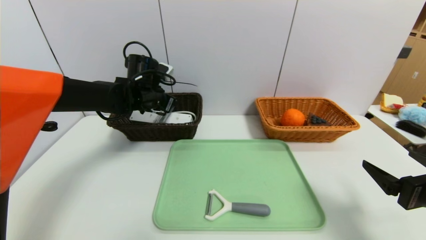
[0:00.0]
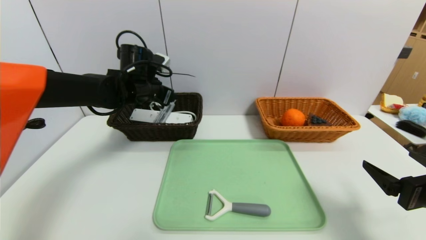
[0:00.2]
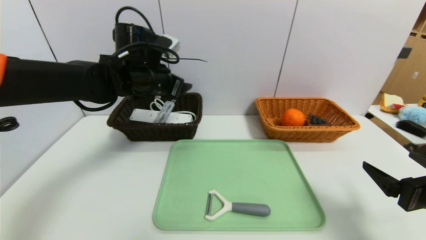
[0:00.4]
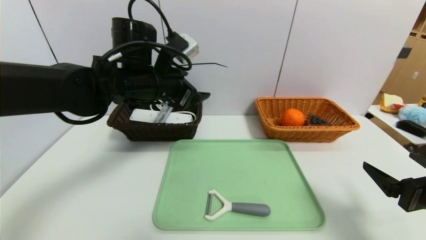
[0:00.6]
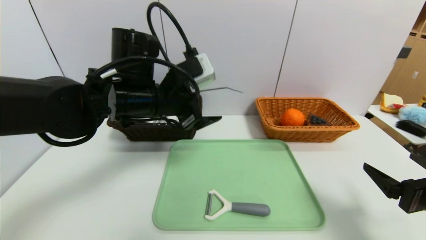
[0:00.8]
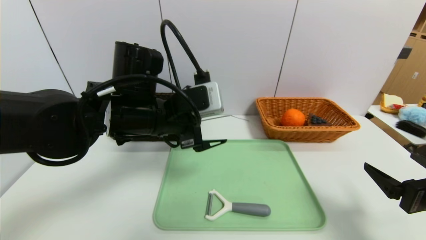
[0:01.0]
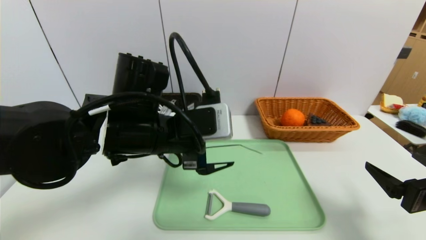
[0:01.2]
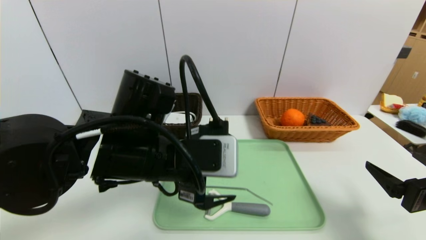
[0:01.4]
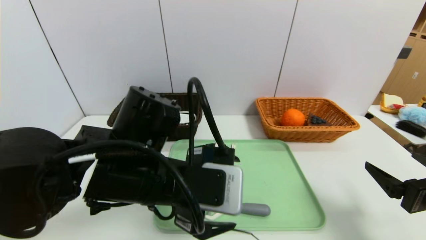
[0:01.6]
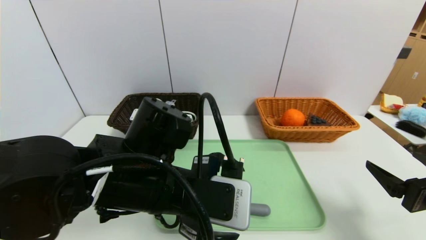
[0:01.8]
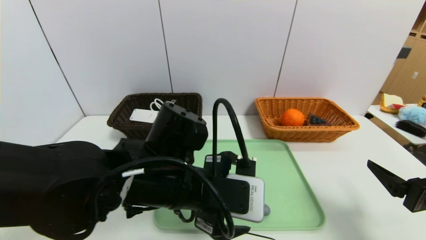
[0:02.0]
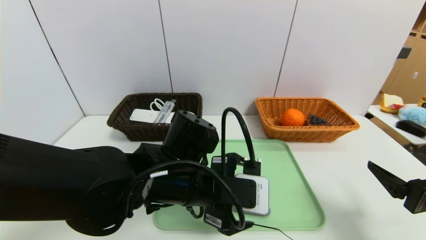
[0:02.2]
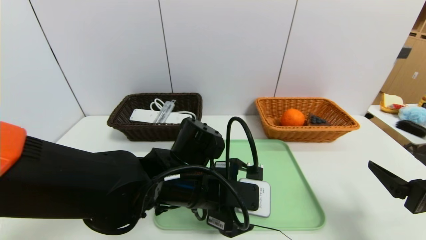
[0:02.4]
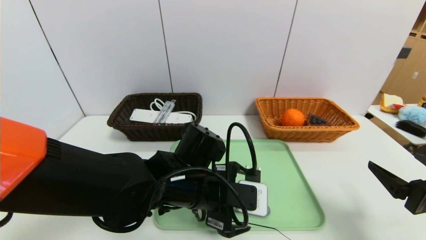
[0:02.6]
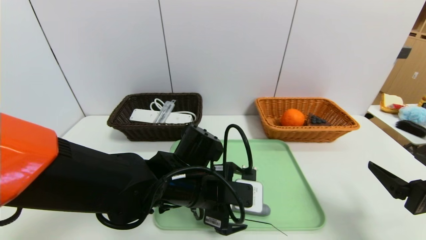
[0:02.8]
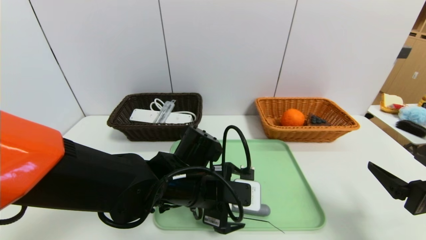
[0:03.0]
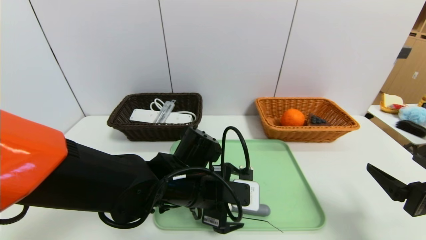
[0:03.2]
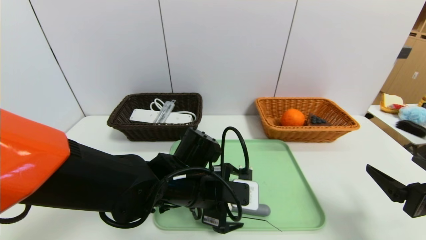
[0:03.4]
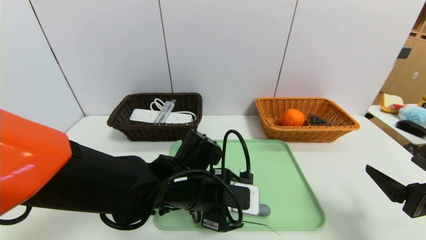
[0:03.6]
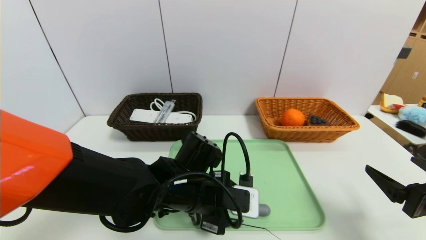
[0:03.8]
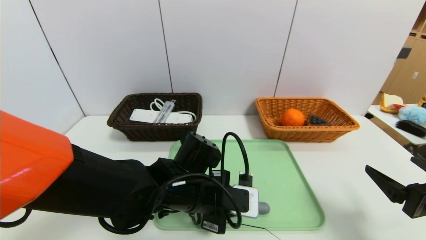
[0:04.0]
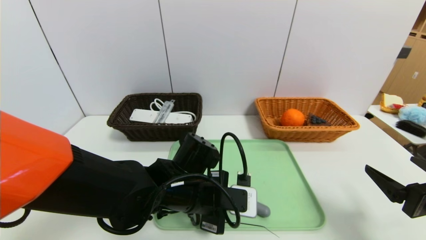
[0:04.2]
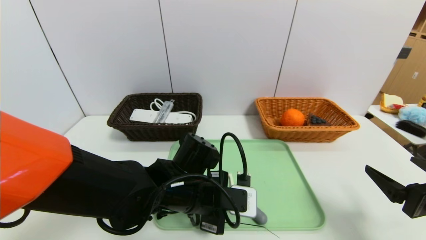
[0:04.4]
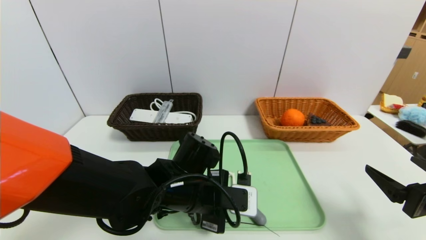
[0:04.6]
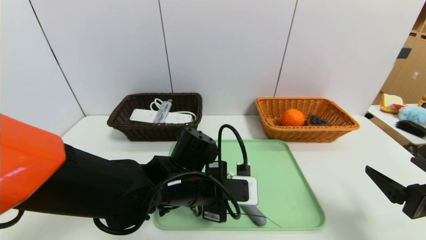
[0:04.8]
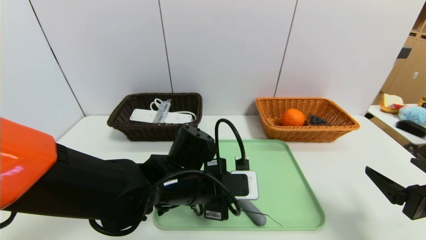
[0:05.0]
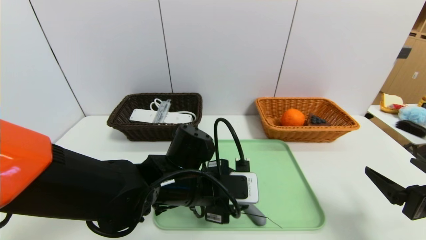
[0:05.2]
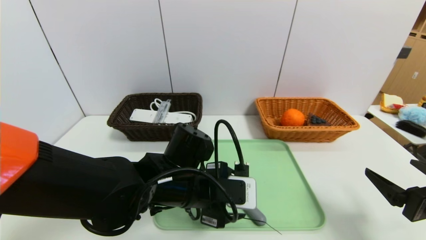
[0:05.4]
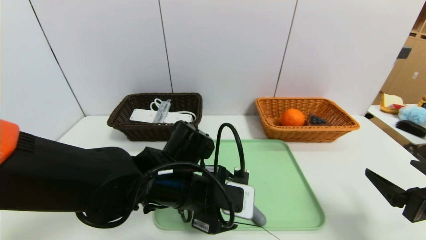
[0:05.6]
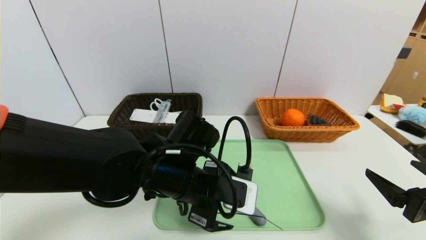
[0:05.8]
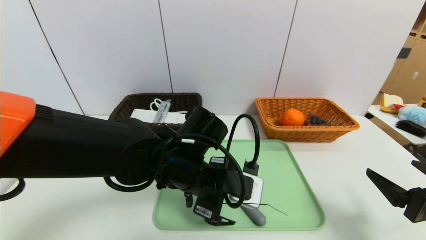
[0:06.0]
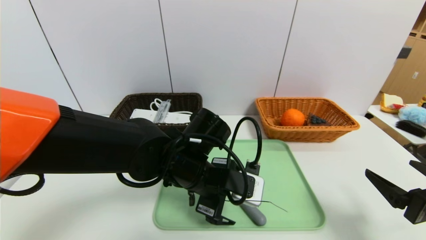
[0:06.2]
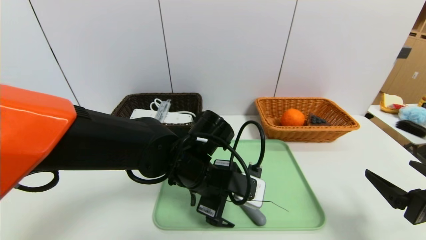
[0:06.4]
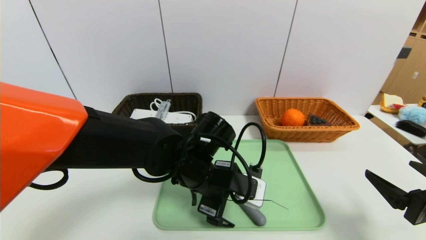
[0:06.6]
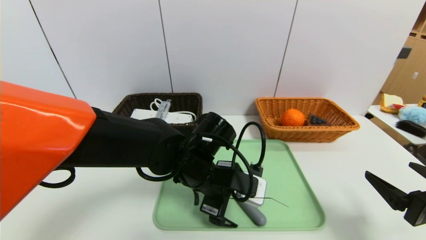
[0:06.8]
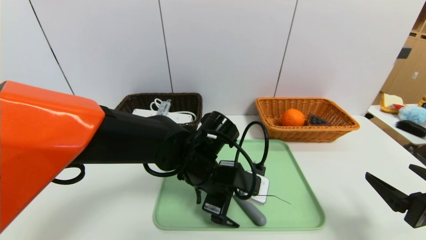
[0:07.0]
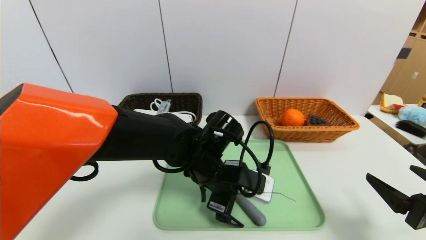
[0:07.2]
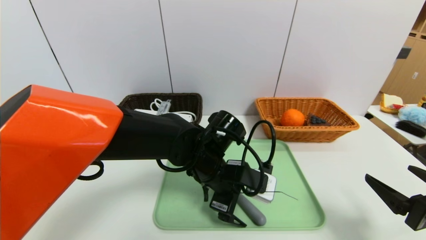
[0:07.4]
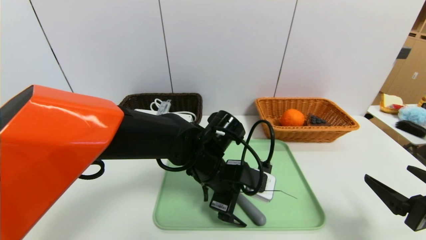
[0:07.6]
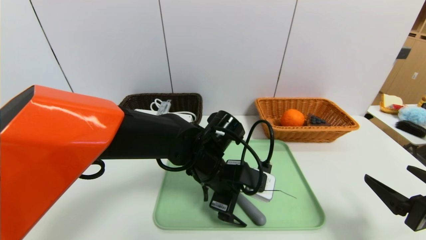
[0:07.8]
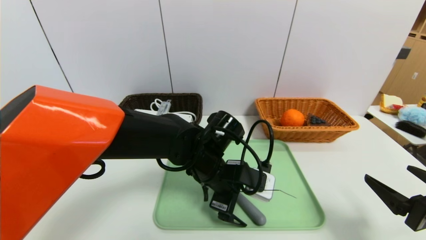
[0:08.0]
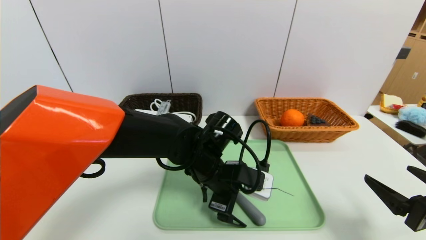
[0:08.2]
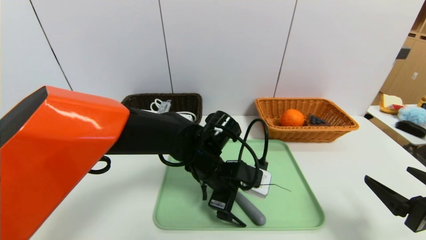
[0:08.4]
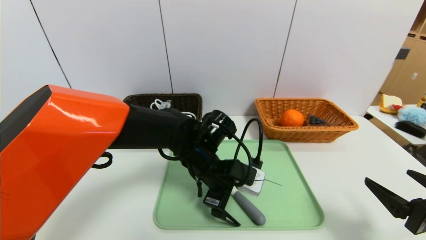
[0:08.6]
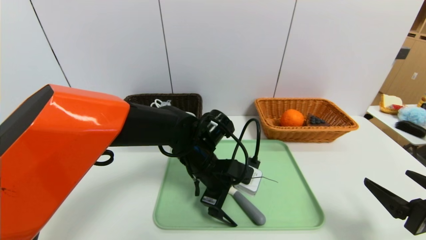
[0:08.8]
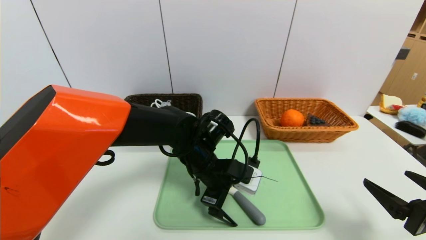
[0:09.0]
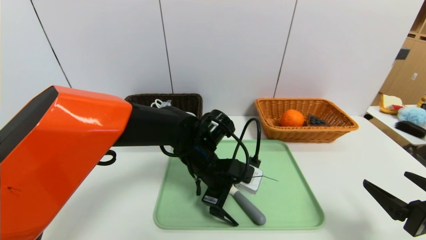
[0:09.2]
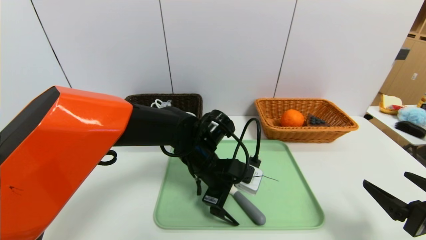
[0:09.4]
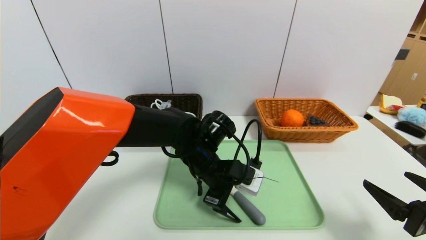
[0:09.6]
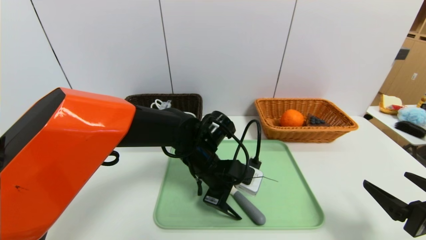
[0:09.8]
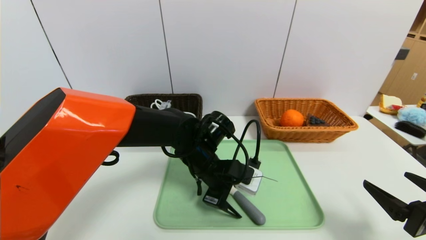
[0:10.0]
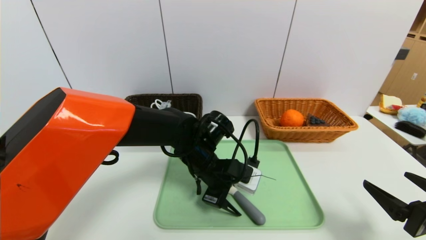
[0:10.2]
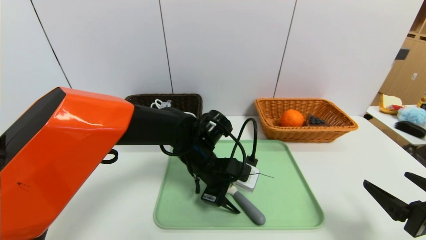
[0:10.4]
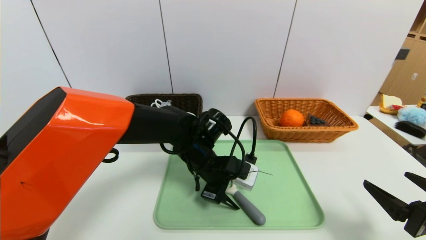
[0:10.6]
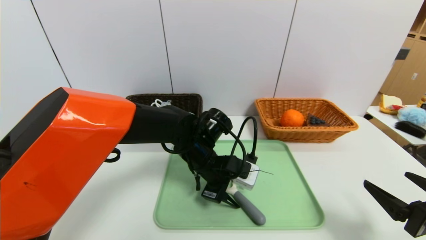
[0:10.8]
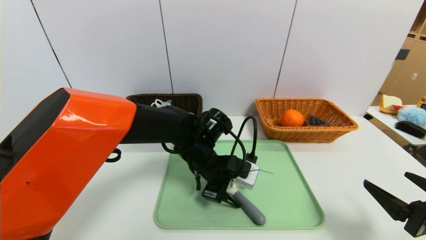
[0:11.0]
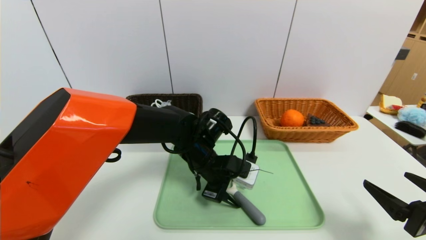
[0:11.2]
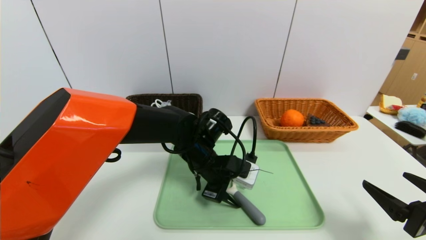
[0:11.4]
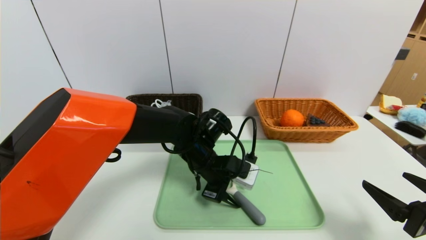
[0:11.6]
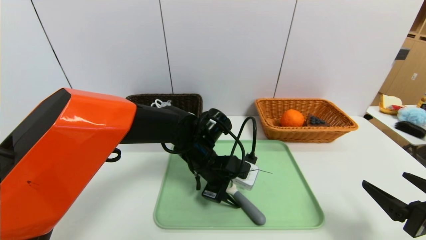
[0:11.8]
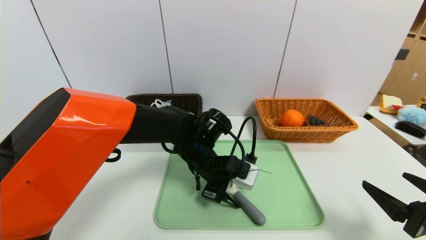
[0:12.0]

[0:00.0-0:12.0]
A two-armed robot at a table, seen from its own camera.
Task of the whole recording: place the food in the right basket with the right gripper, and place the non food items in the left basket with the left gripper.
0:00.0 to 0:01.6: The left gripper goes approximately 25 cm backward.
0:01.6 to 0:03.0: The left gripper heads downward, covering about 10 cm.
0:03.0 to 0:04.4: The left gripper closes up.
0:04.4 to 0:06.0: The left gripper opens.
0:06.0 to 0:07.6: The left gripper ends up some 5 cm from where it was.
0:07.6 to 0:09.0: The grippers move only a little.
0:09.0 to 0:10.4: The left gripper closes.
0:10.4 to 0:12.0: Neither gripper changes place.

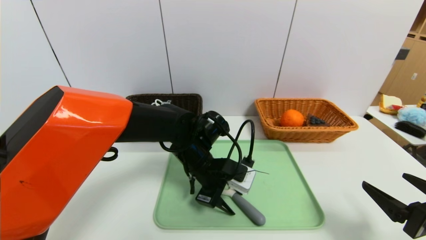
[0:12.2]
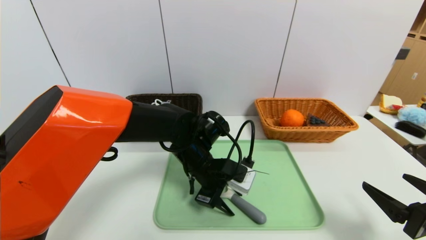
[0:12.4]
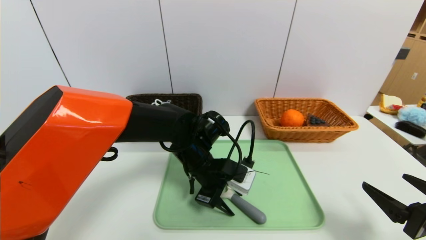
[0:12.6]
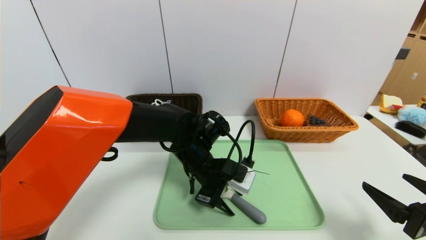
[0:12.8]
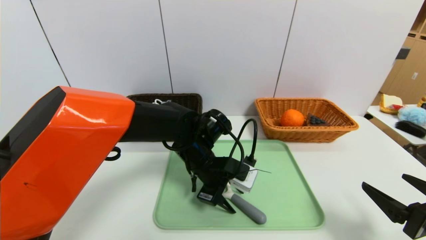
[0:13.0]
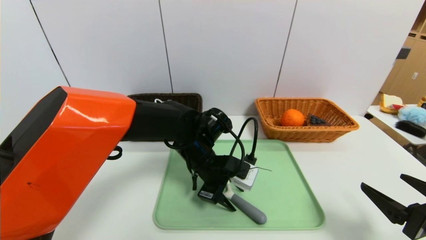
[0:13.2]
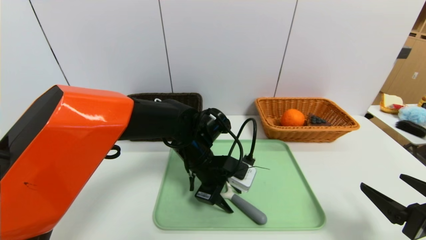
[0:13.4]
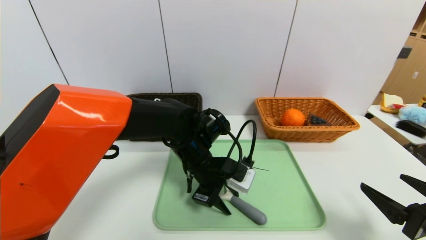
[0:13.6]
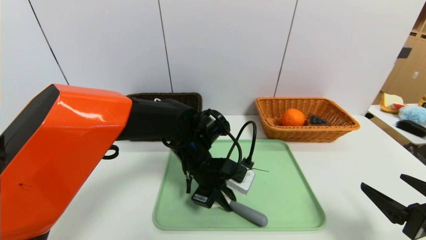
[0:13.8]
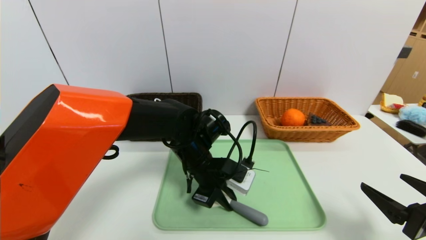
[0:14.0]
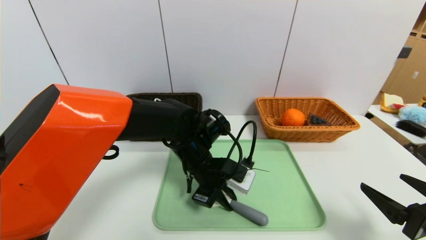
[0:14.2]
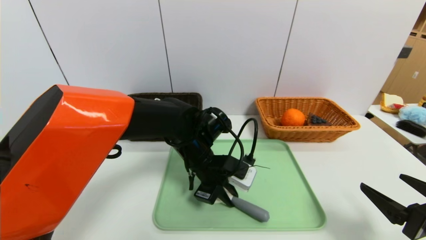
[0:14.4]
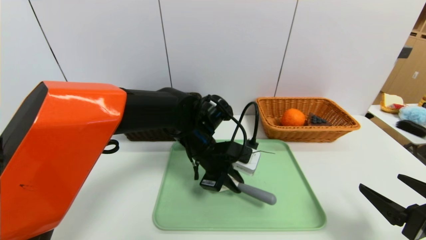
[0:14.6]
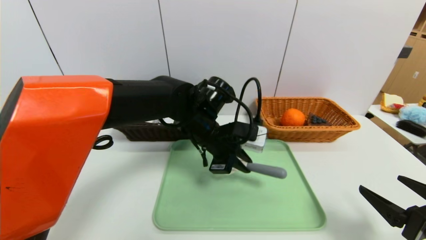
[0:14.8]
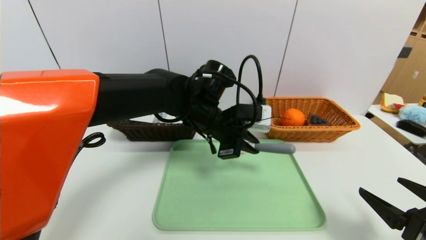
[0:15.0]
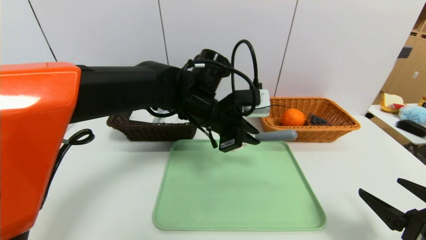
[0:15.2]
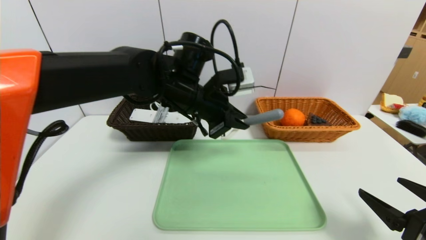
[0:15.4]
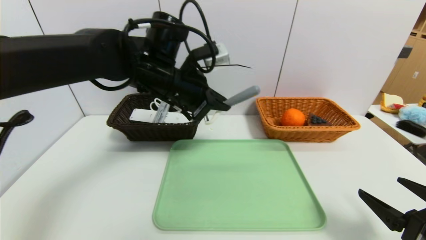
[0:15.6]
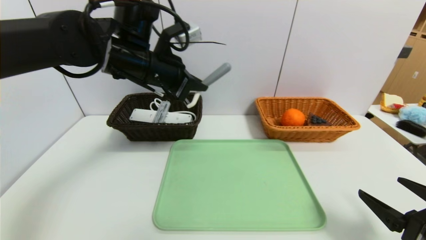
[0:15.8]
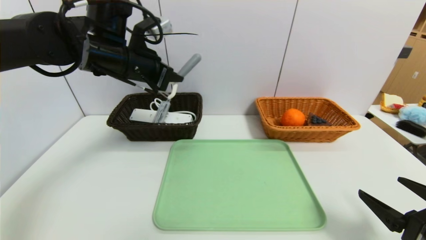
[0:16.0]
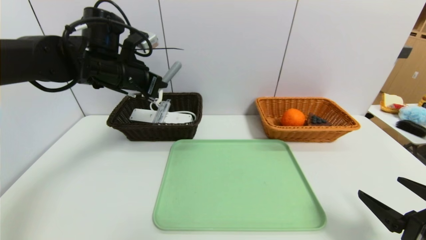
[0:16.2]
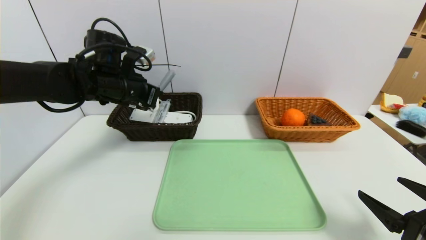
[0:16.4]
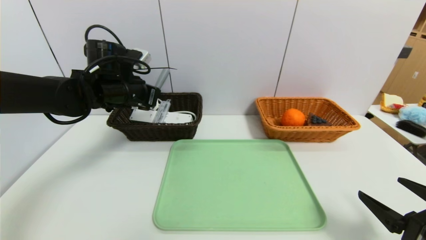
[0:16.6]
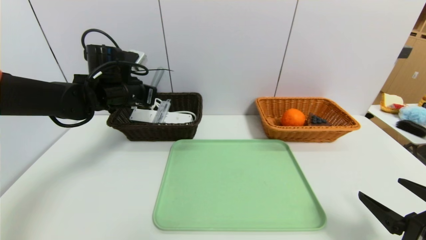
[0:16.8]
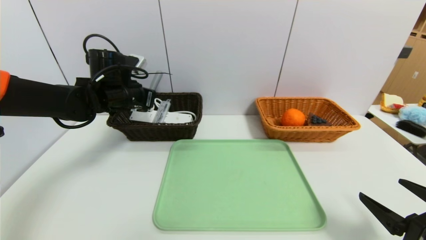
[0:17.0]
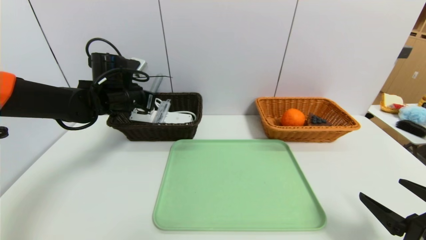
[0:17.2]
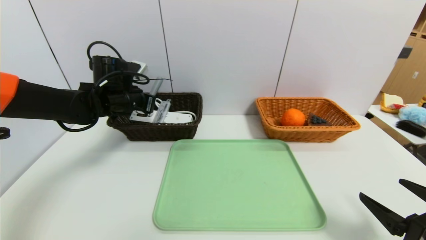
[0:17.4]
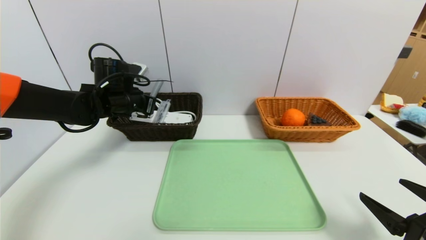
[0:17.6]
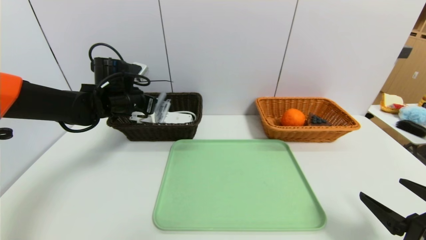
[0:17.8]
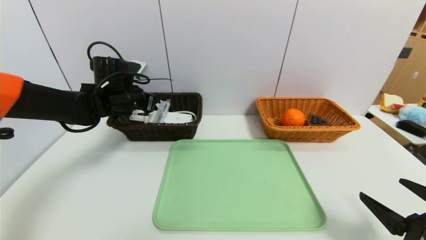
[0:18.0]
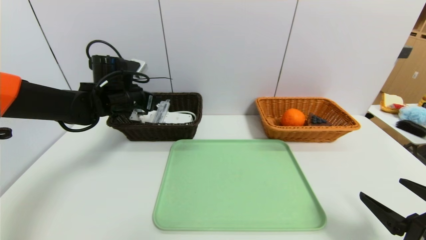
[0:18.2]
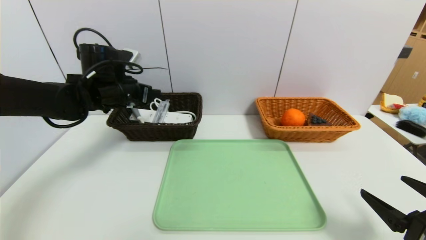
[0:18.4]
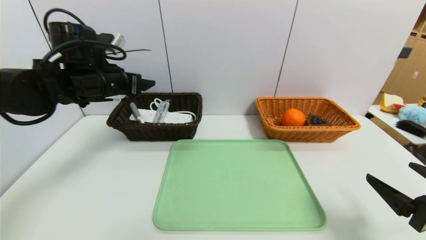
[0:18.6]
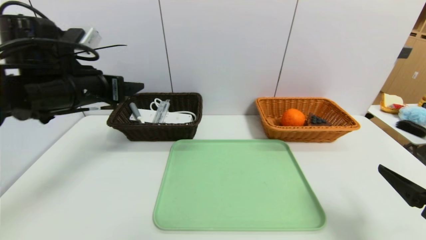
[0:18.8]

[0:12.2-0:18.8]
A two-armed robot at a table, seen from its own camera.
Task of the whole recording: place the food in the right basket with the right gripper, and place the non food items in the left basket with the left gripper.
Step, 0:12.2 to 0:18.4: Grasp the peeler and put it in the left basket.
0:12.2 to 0:13.8: The left gripper closes up.
0:13.8 to 0:15.4: The left gripper heads upward, covering roughly 15 cm.
0:15.4 to 0:17.2: The left gripper heads to the left and forward, covering roughly 20 cm.
0:17.2 to 0:18.8: The left gripper travels backward and upward by roughly 15 cm, and opens up.
